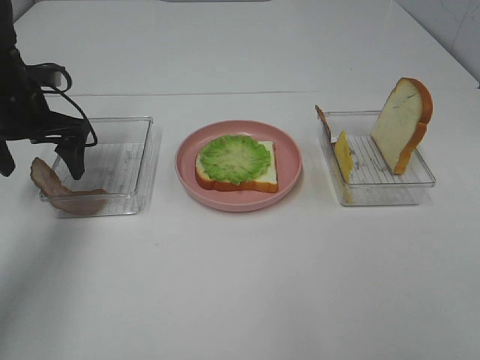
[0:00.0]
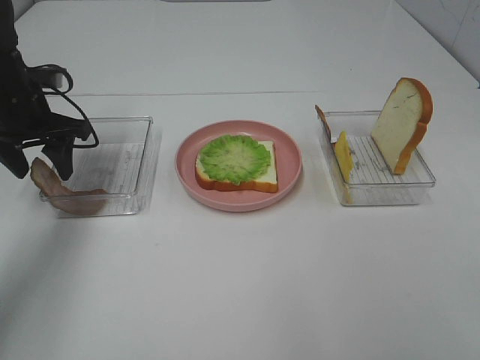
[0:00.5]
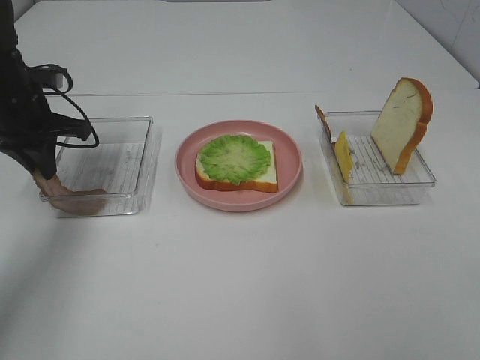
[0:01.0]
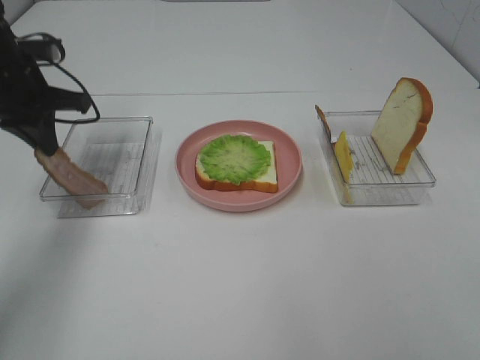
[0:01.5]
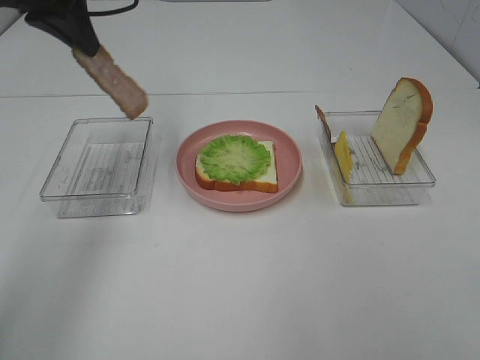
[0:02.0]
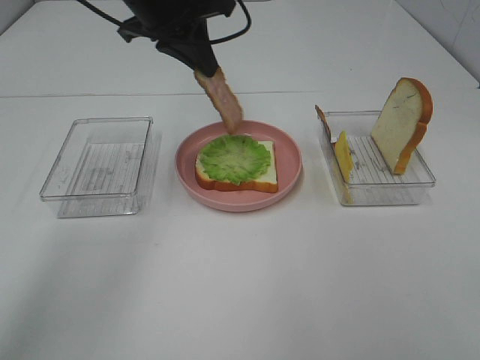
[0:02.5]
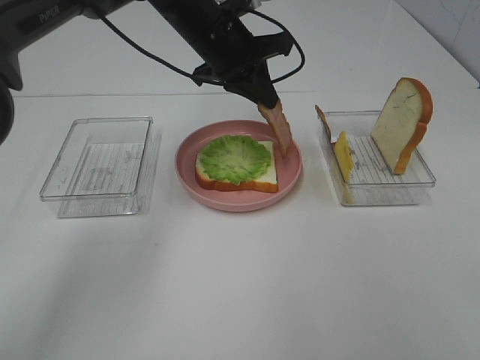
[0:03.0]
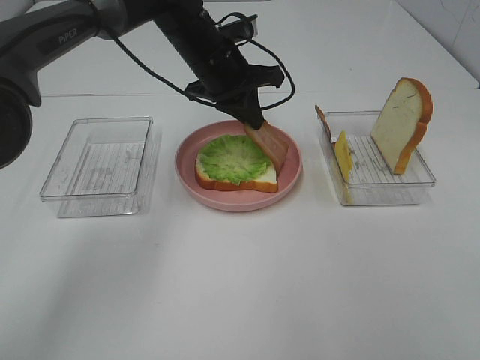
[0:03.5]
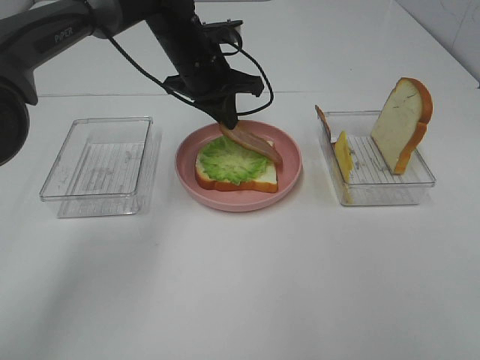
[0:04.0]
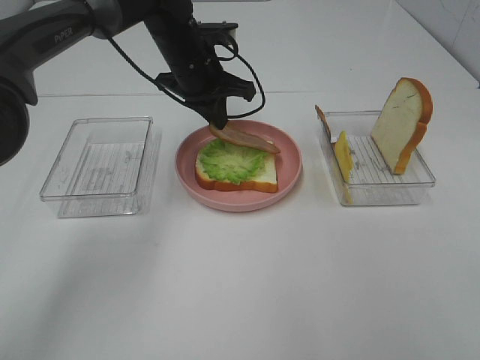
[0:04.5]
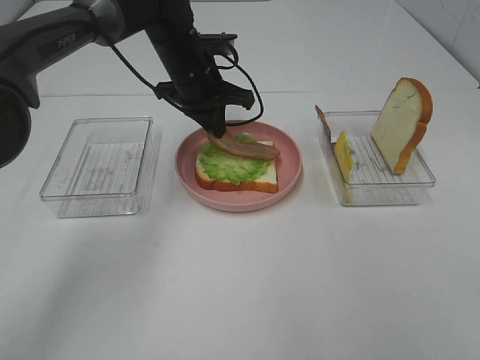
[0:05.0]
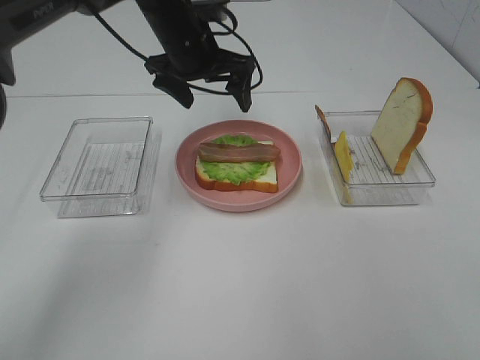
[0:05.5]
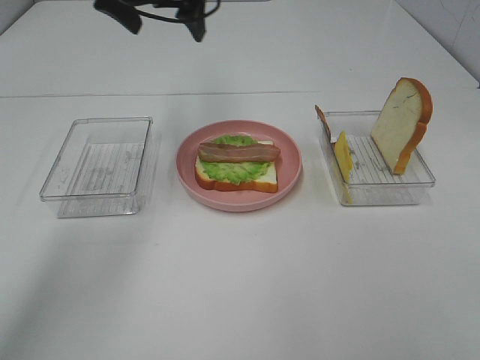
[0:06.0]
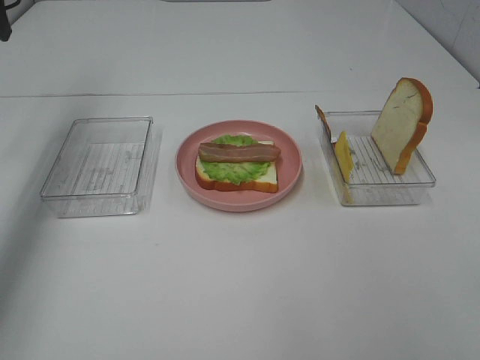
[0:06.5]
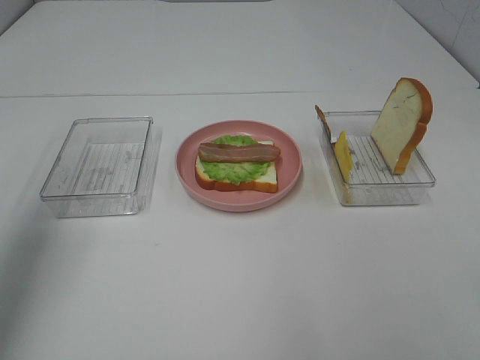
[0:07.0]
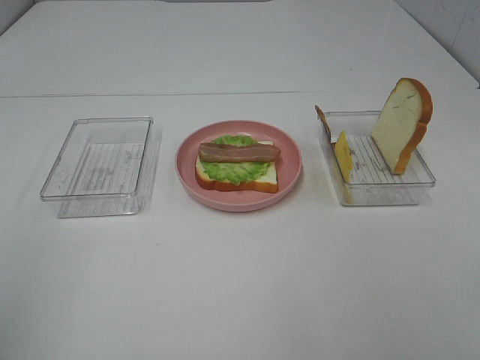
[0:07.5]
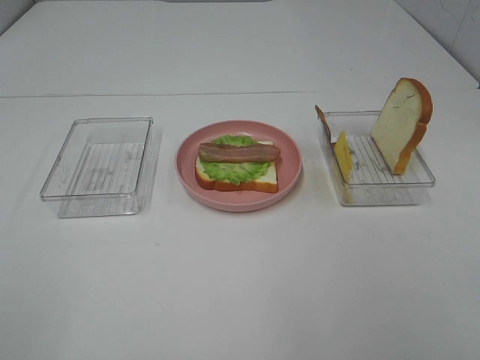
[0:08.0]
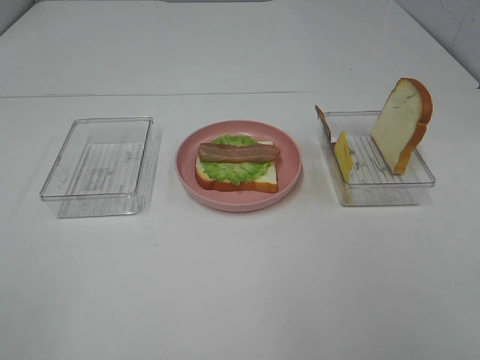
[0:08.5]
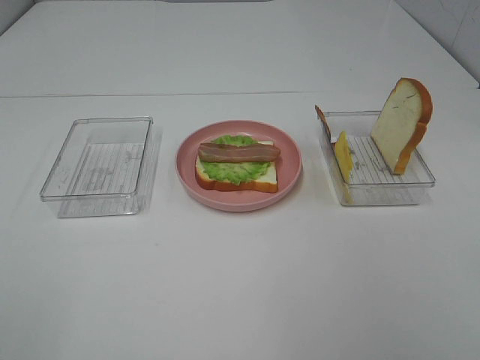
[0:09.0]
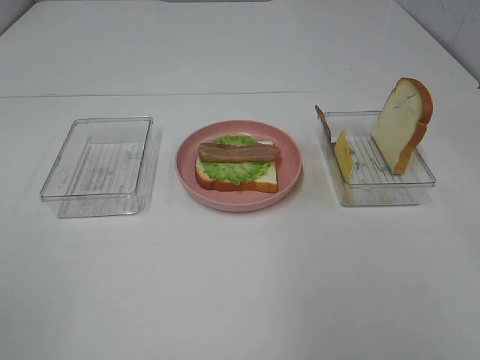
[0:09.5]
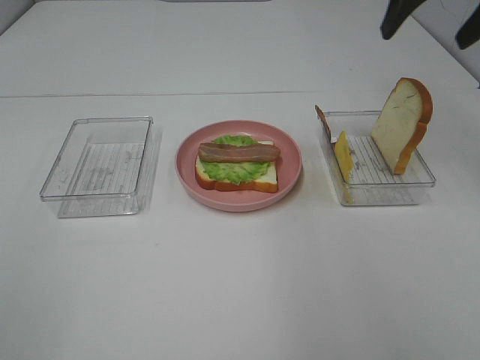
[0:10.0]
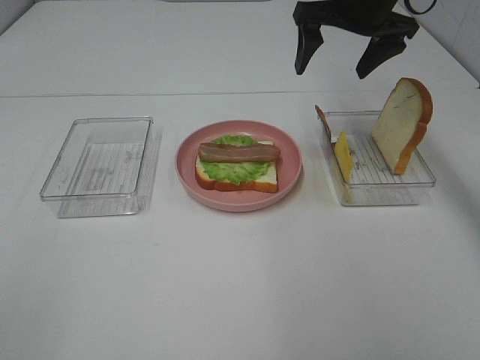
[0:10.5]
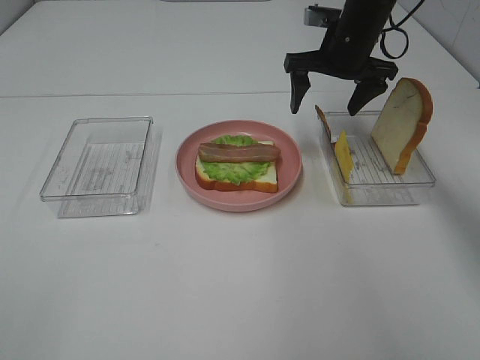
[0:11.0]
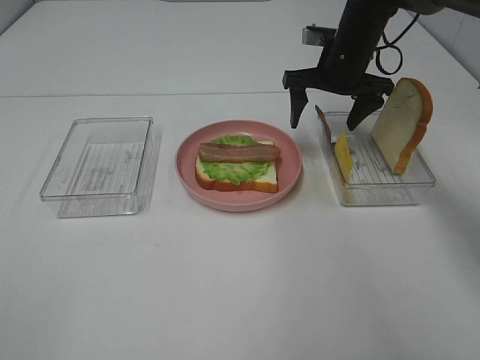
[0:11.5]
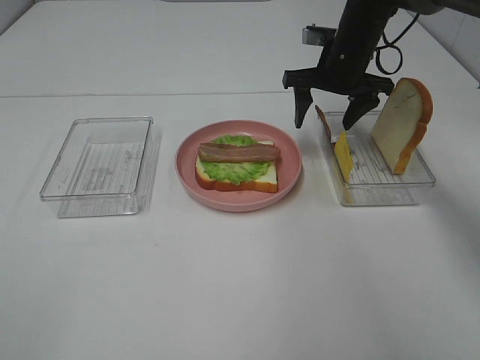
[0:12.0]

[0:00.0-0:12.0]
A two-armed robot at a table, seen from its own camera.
Task of the whole recording: Make sandwiches.
Step, 0:01.5 to 0:05.0: Left hand:place bacon on lettuce slice.
0:00.0 to 0:02.0: The left gripper goes some 20 cm upward and to the right, and closes up.
0:02.0 to 0:04.0: The left gripper travels downward, to the right and forward by some 20 cm.
0:04.0 to 0:06.0: The left gripper moves upward and to the left, about 15 cm, and opens up.
0:06.0 to 0:08.0: The left gripper moves backward, approximately 50 cm.
0:08.0 to 0:10.0: The right gripper goes some 40 cm forward.
0:10.0 to 0:12.0: The right gripper heads downward, forward and to the left, covering roughly 20 cm.

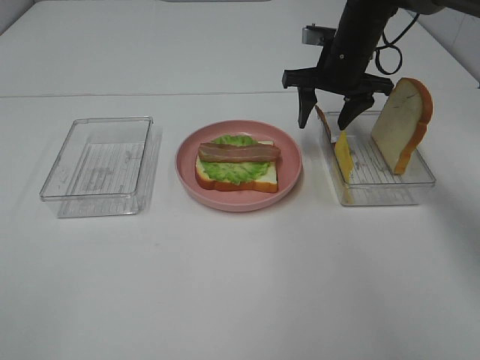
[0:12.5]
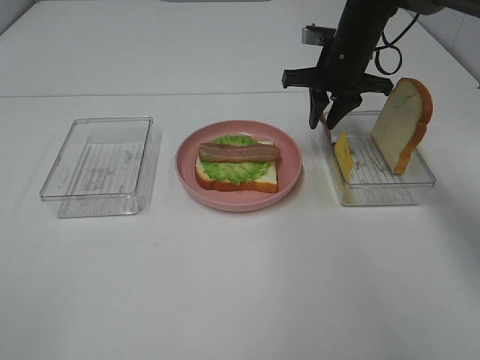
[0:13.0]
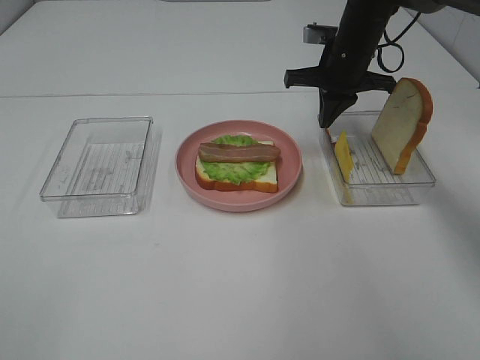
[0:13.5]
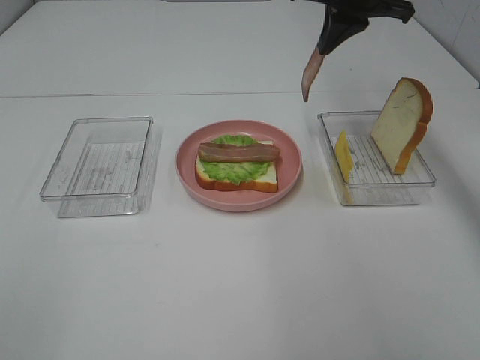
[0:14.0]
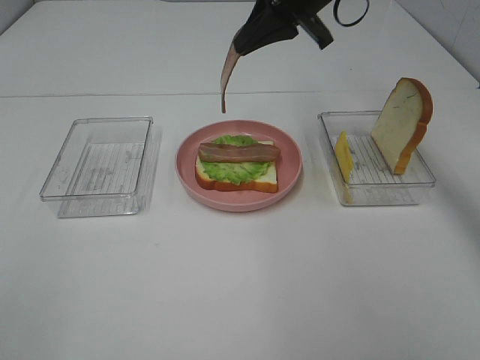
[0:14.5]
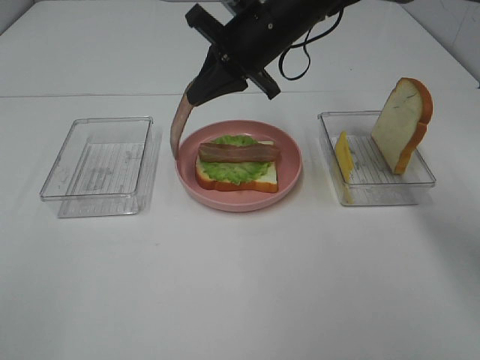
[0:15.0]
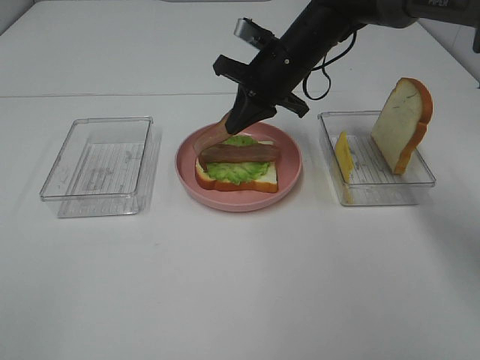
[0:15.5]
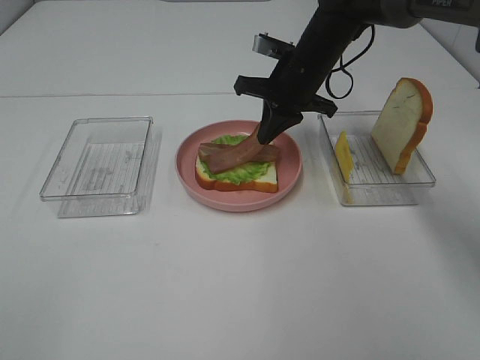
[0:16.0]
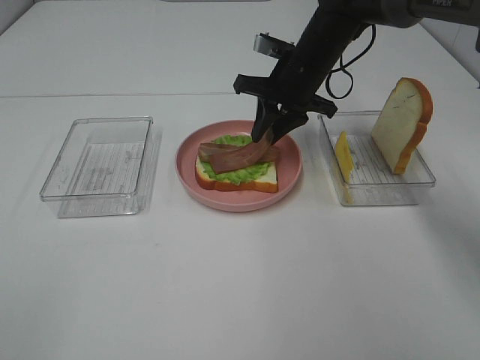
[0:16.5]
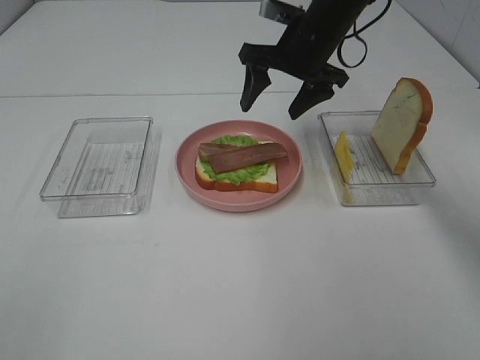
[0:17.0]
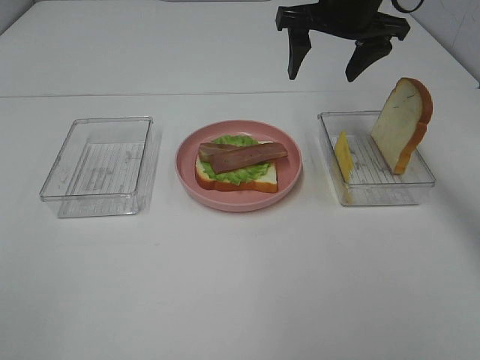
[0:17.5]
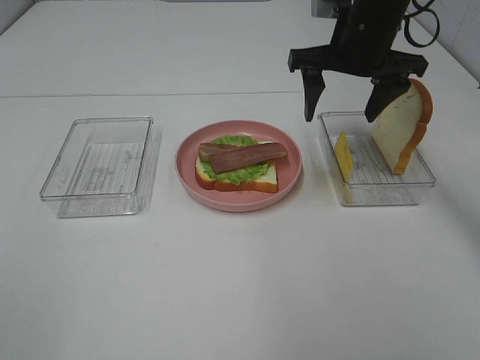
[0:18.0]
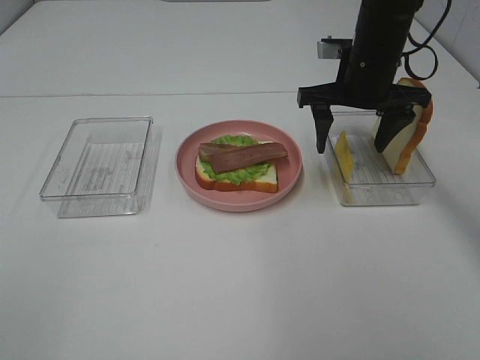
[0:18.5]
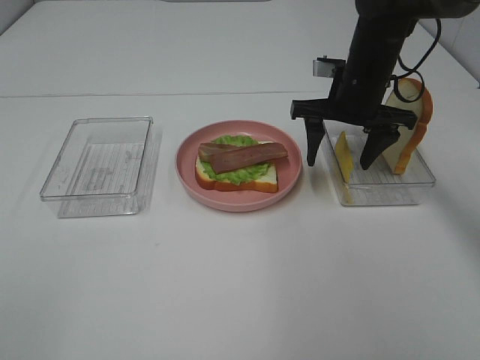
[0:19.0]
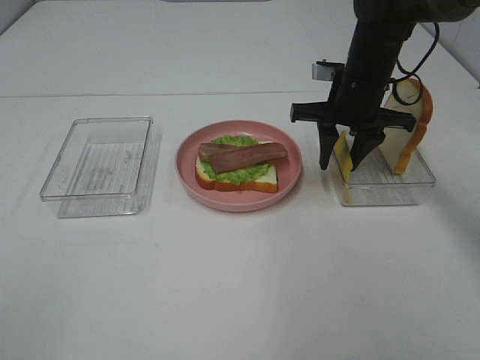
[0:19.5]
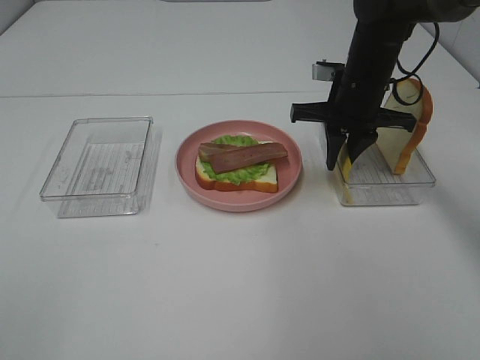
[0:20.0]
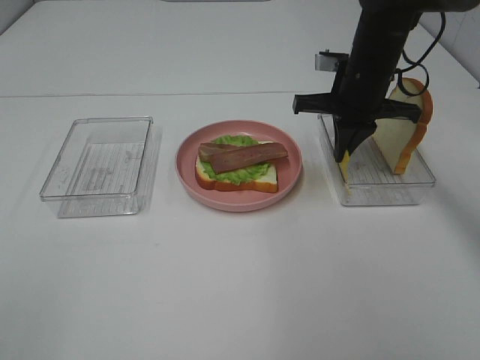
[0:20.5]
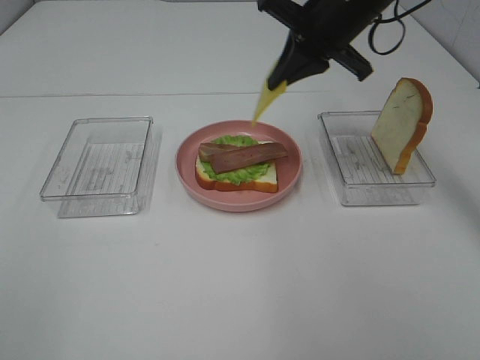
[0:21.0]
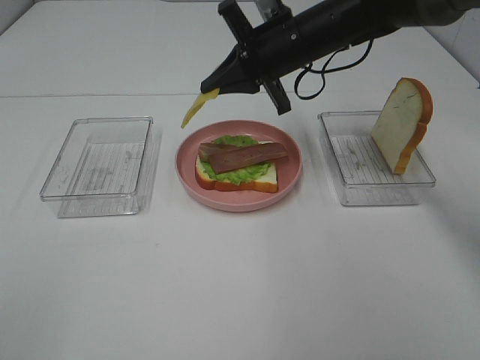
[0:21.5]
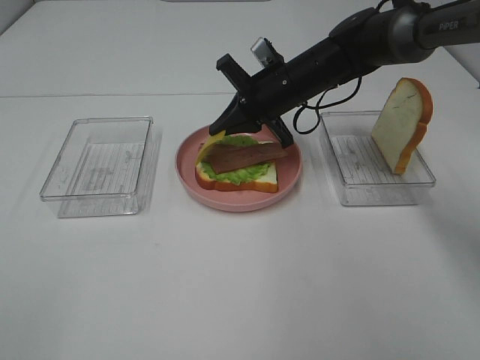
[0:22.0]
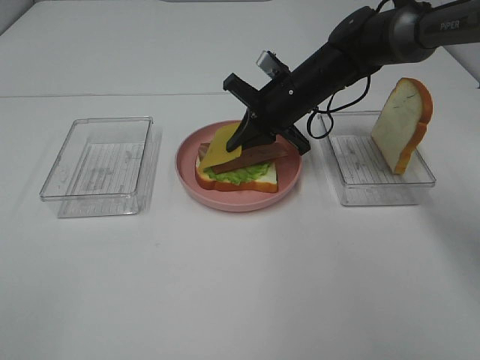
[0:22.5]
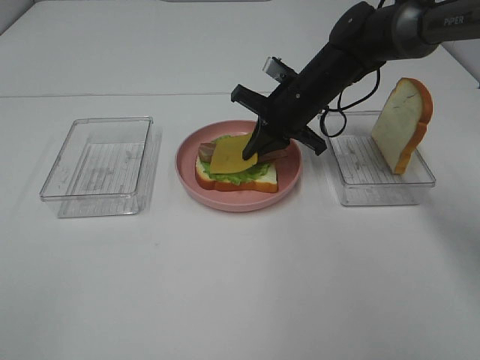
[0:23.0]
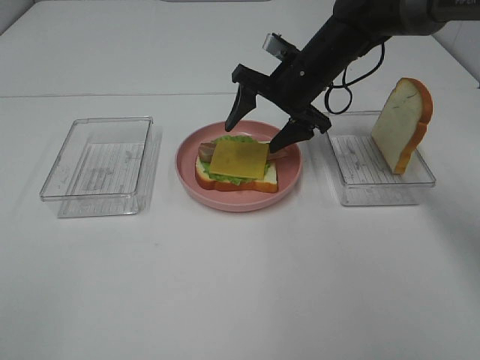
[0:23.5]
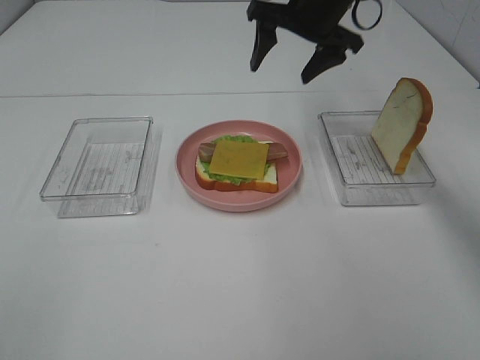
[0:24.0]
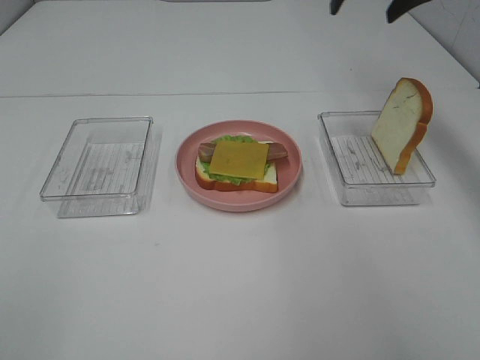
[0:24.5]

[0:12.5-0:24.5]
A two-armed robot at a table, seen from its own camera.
Task of the whole recording: Make sandwiches.
Step, 0:13.5 to 0:17.0: Right hand:place bacon on bacon.
Step, 0:17.5 to 0:20.5: Right hand:grab the cheese slice.
Step, 0:21.0 to 0:23.5: Right hand:place the cheese slice on top of the bacon.
0:12.5 to 0:14.5: The right gripper heads upward and to the left, covering approximately 10 cm, and closes.
0:14.5 to 0:16.5: The right gripper moves downward, approximately 10 cm, and opens up.
0:16.5 to 0:18.5: The right gripper is displaced to the right by roughly 5 cm, reaches some 10 cm upward, then returns, and opens its fingers.
0:18.5 to 0:20.5: The right gripper closes up.
0:20.5 to 0:22.5: The right gripper shifts some 10 cm to the left and downward.
0:22.5 to 0:24.5: The right gripper shifts roughly 25 cm upward and to the right, and opens its fingers.

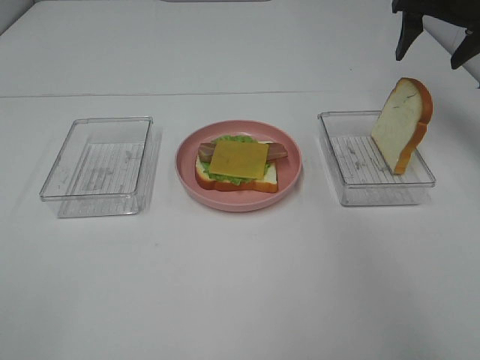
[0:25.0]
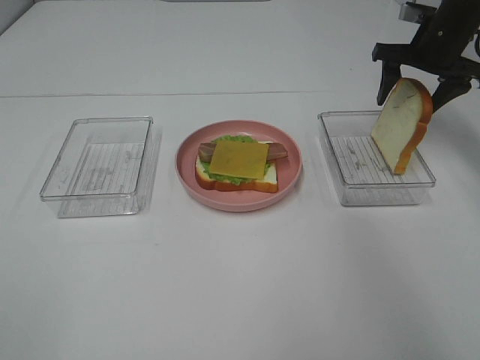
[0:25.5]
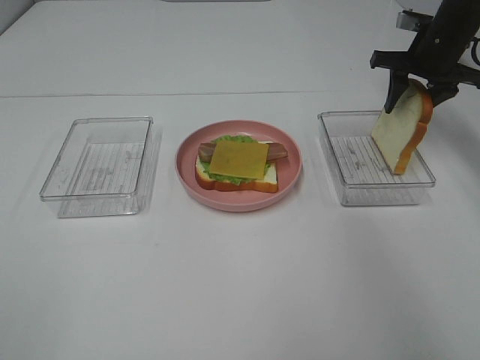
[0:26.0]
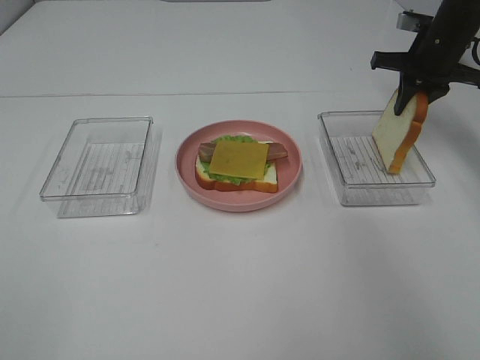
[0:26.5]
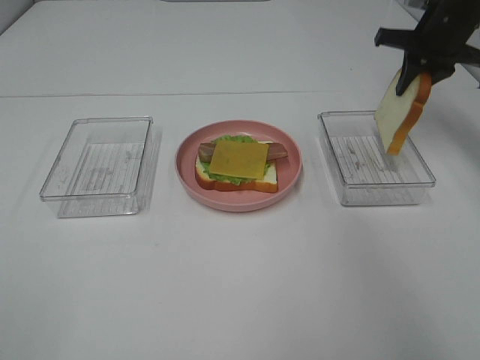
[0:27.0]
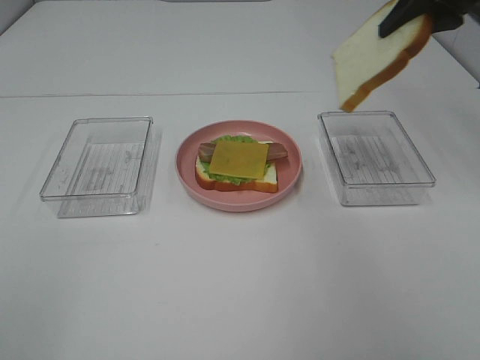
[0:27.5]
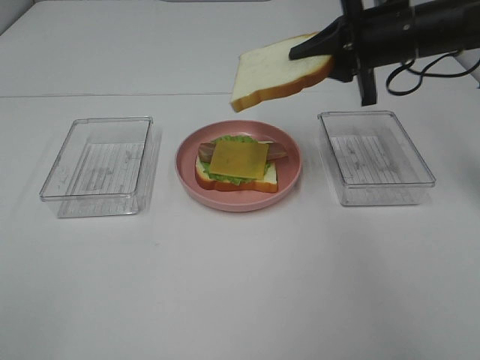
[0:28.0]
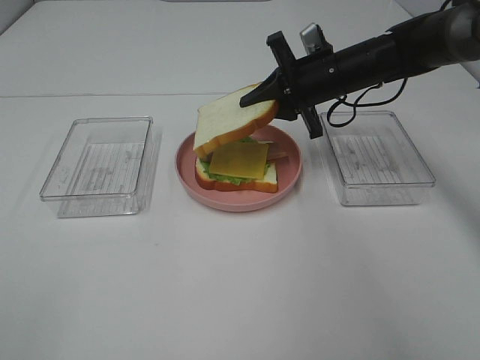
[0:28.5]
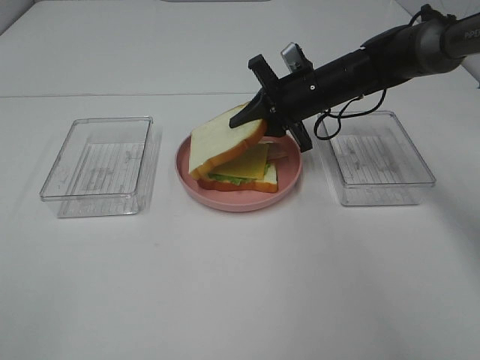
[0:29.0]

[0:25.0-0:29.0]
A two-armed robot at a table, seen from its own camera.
Task of the whole recording: Make sandwiches.
0:25.0 to 0:27.0: The right gripper closes its fingers.
0:27.0 to 0:29.0: The right gripper shifts some 20 cm to the left and downward.
